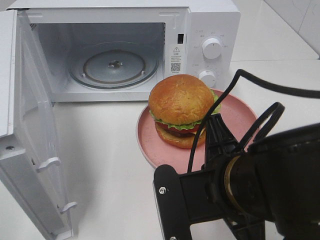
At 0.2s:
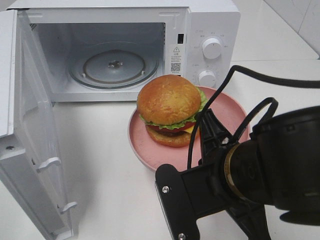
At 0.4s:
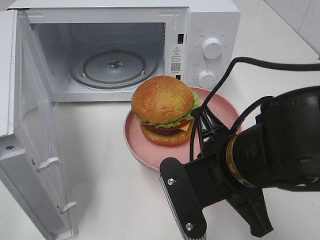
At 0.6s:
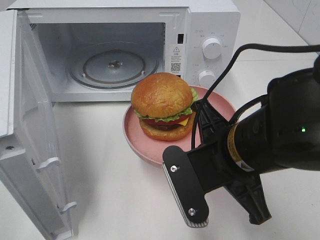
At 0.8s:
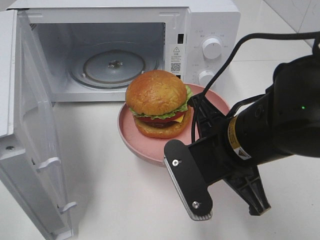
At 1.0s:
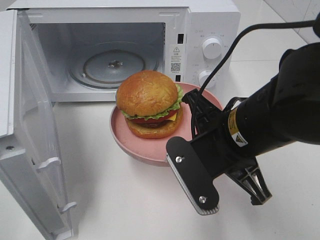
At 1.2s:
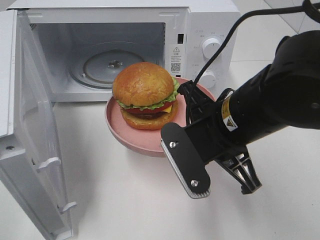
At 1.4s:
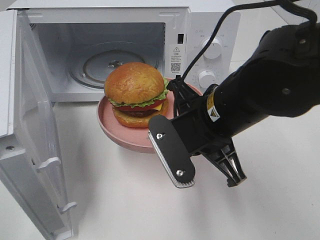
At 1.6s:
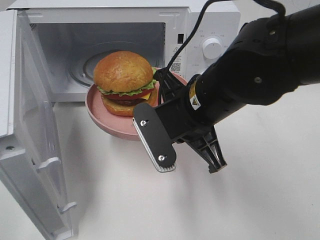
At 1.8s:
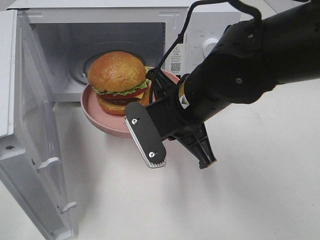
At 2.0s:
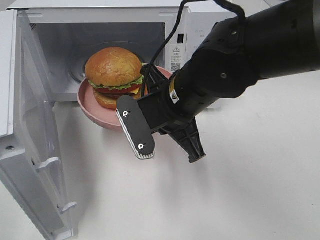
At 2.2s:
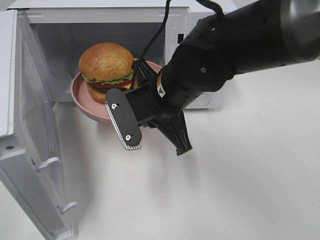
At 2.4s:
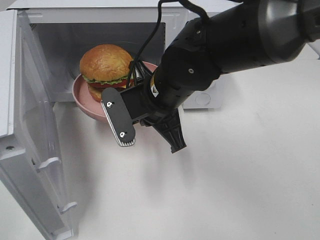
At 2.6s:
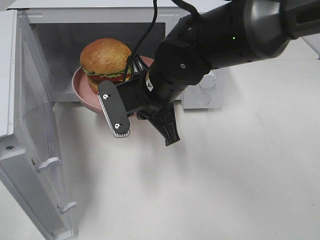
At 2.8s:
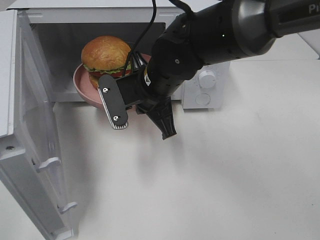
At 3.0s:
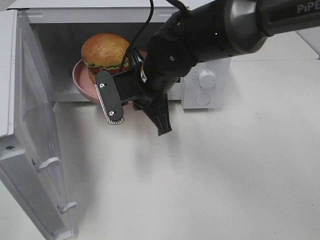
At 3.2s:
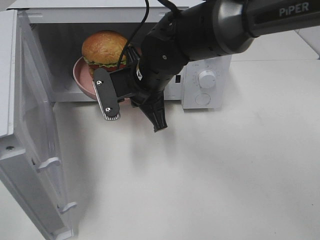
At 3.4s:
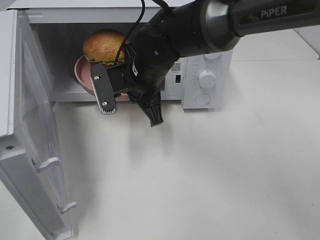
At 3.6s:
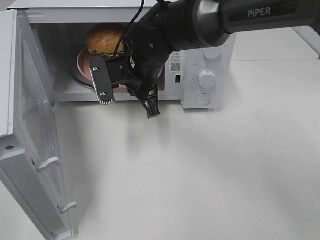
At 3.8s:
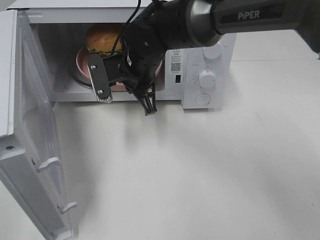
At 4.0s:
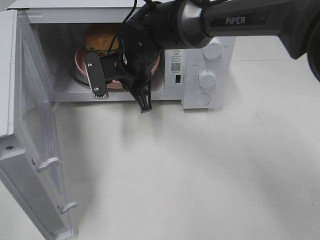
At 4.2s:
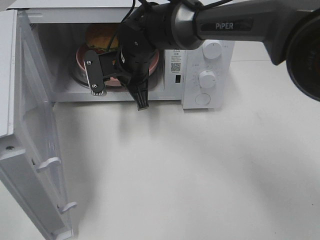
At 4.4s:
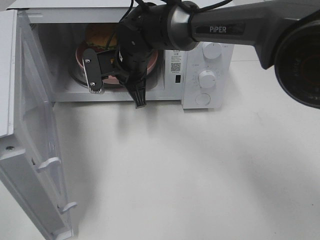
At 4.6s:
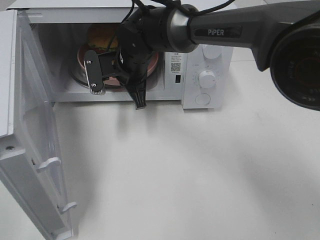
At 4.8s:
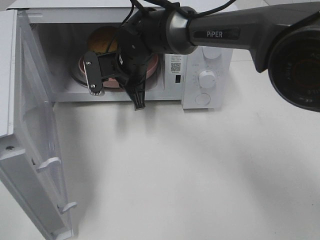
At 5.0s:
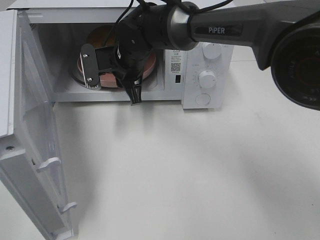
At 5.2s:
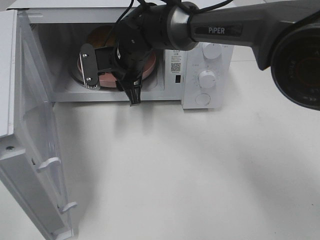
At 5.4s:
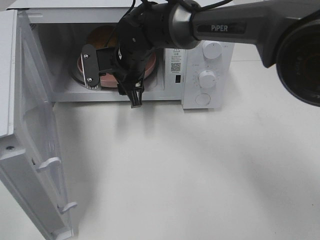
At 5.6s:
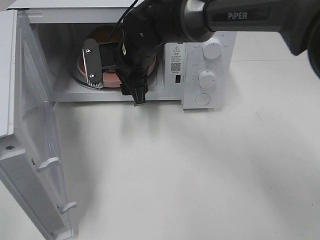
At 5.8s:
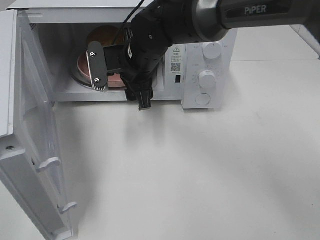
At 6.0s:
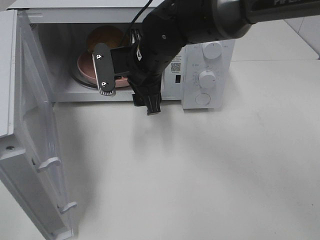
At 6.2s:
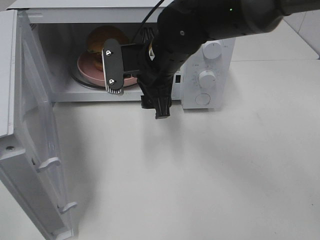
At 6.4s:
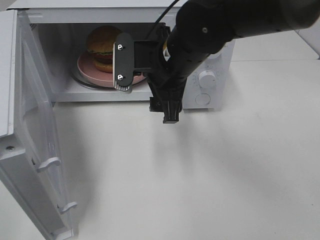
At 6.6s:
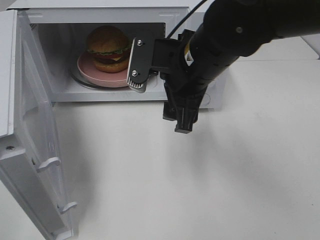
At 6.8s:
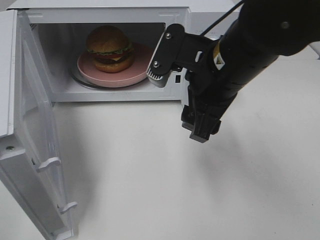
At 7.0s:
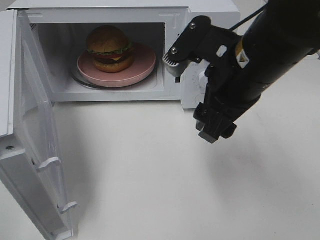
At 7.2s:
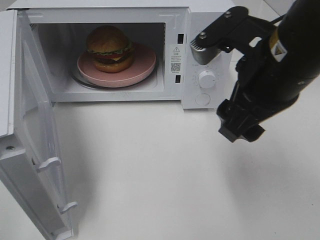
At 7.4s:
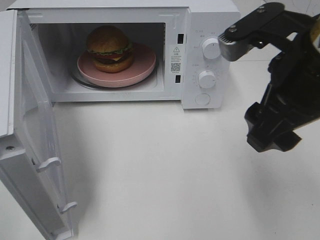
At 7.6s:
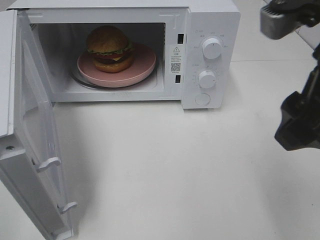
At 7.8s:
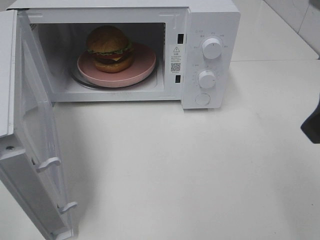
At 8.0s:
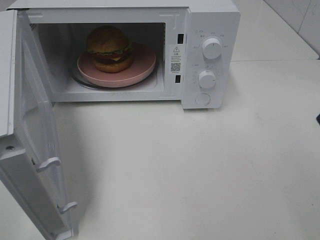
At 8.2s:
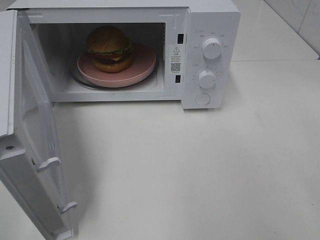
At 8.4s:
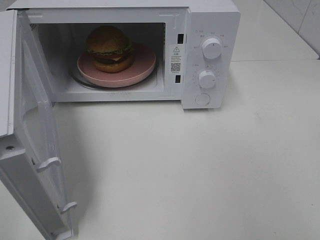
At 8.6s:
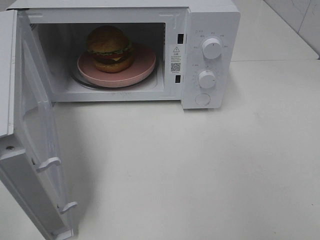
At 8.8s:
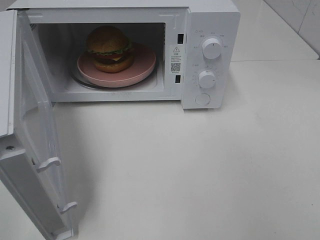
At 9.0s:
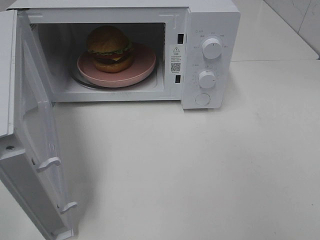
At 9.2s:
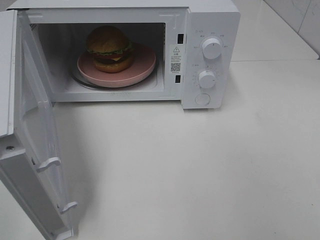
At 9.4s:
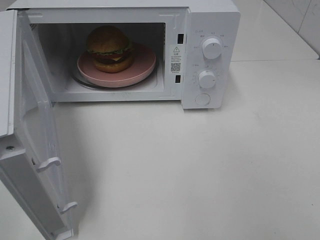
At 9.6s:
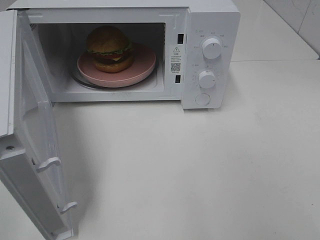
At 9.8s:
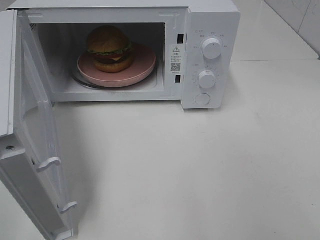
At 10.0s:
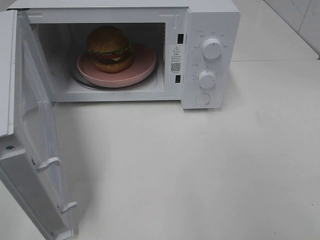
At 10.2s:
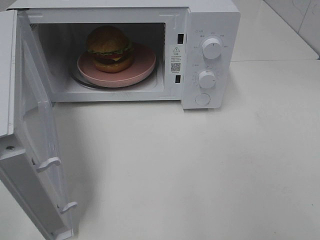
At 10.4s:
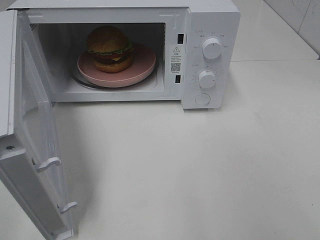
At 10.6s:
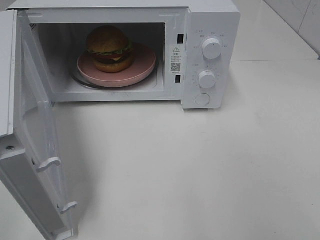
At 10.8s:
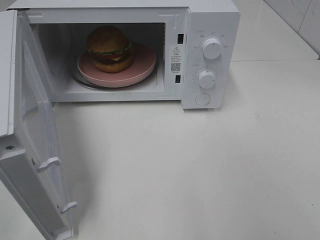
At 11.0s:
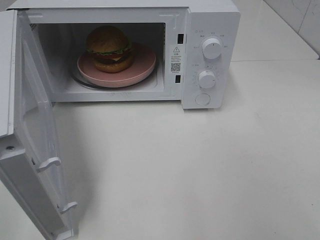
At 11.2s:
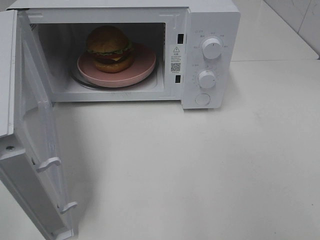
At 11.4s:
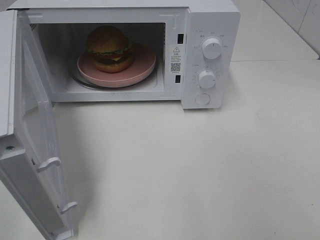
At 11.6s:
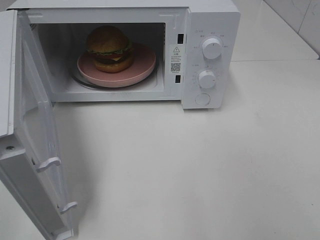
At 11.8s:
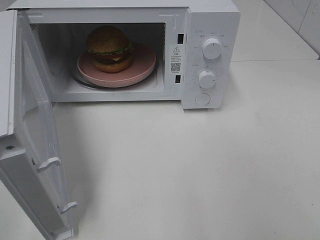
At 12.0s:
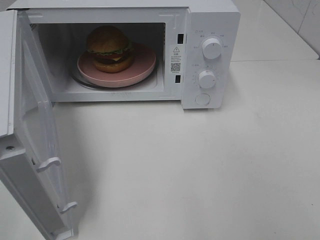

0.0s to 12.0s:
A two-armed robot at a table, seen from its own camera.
Task of the whole recording: Heat the burger.
Step, 0.0s to 5.0s: Right hand: place the plate in the microwave.
0.0s to 1.6s: The right gripper goes about 10 cm forward.
1.6s to 3.0s: The right gripper moves forward and to the left, about 10 cm.
3.0s to 4.4s: The right gripper is displaced forward by some 10 cm.
4.4s to 6.0s: The right gripper heads backward, covering roughly 5 cm, and opens its fingers.
6.0s to 7.6s: The right gripper moves backward, to the right and upward, approximately 30 cm.
7.6s to 9.0s: The right gripper shifts approximately 20 cm backward and to the right.

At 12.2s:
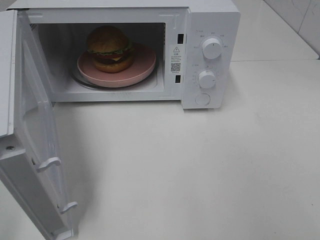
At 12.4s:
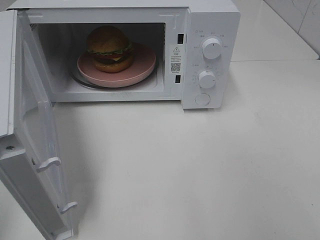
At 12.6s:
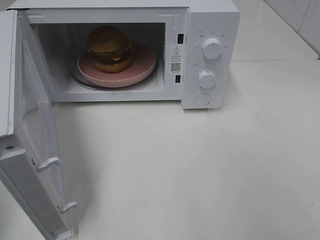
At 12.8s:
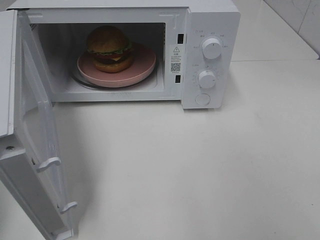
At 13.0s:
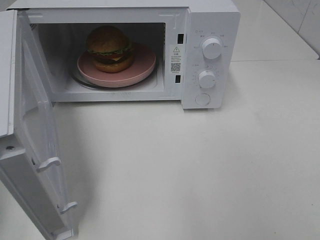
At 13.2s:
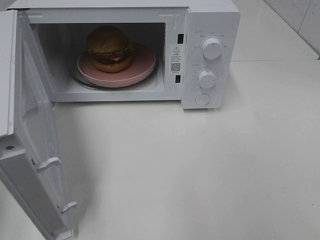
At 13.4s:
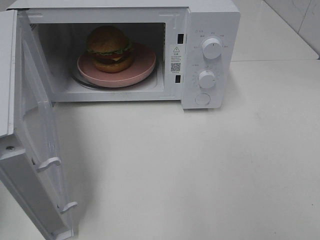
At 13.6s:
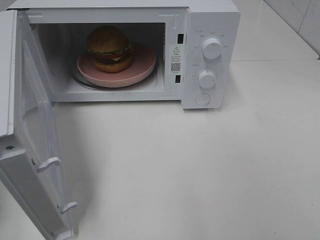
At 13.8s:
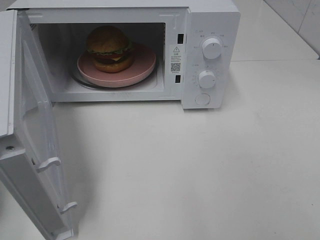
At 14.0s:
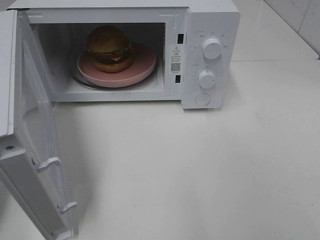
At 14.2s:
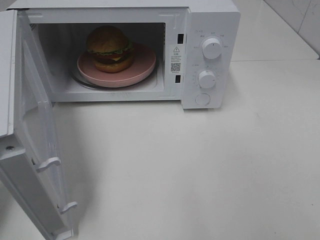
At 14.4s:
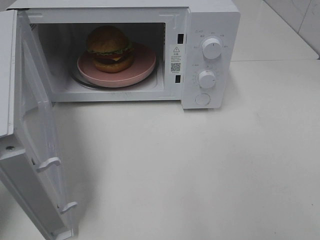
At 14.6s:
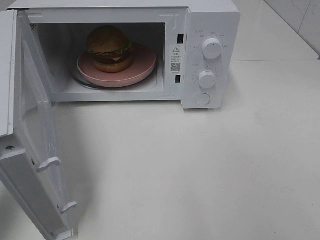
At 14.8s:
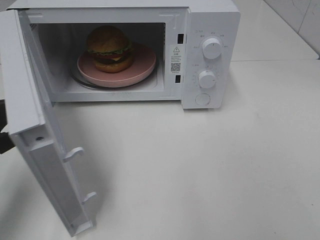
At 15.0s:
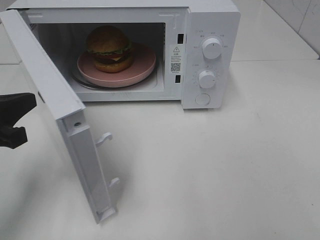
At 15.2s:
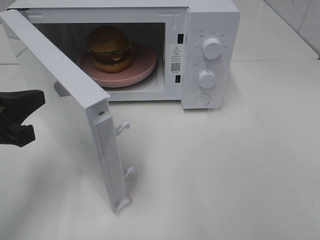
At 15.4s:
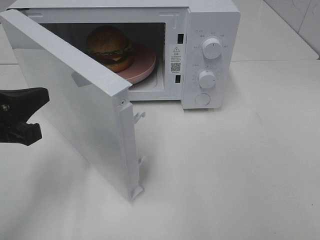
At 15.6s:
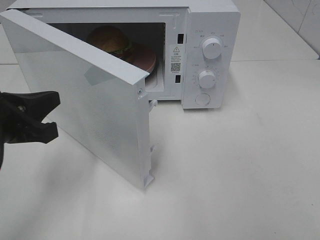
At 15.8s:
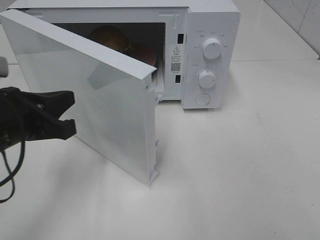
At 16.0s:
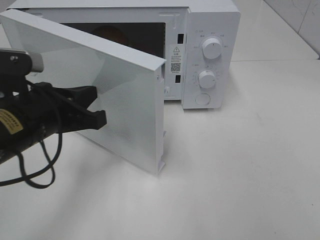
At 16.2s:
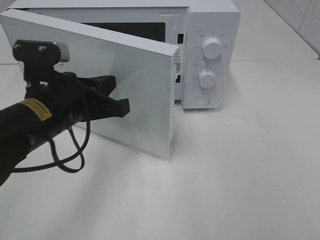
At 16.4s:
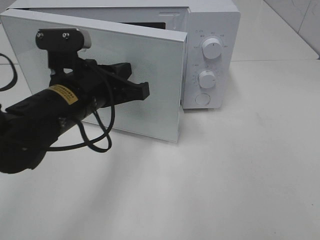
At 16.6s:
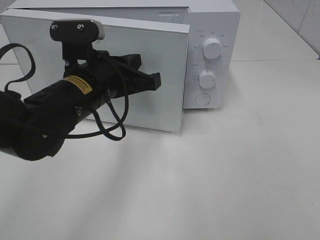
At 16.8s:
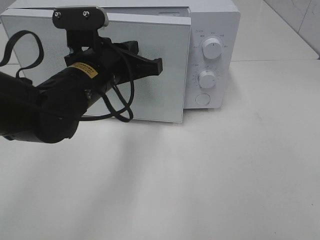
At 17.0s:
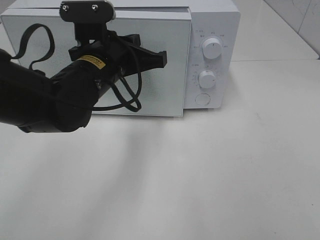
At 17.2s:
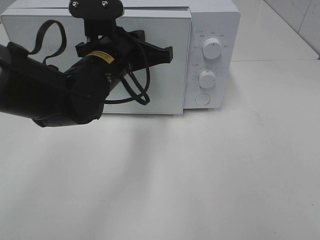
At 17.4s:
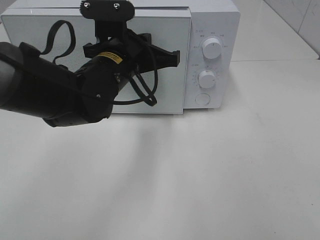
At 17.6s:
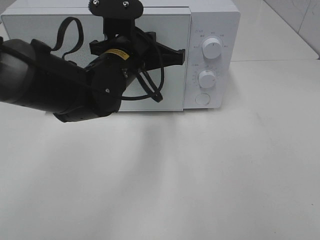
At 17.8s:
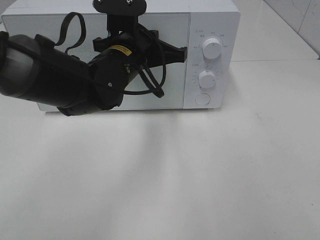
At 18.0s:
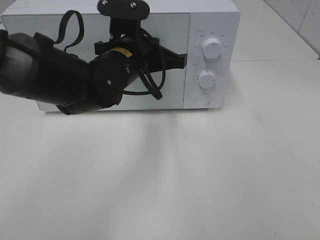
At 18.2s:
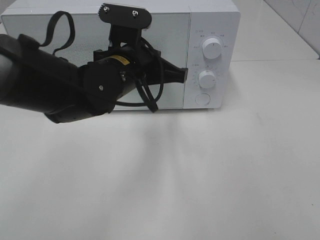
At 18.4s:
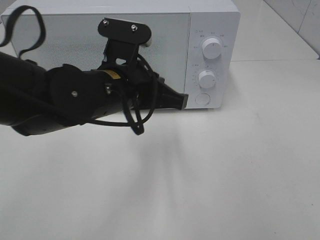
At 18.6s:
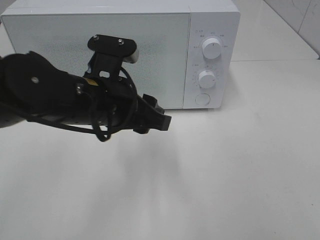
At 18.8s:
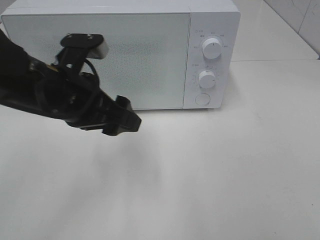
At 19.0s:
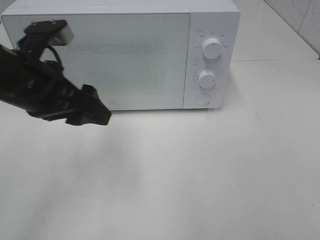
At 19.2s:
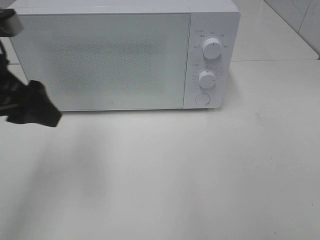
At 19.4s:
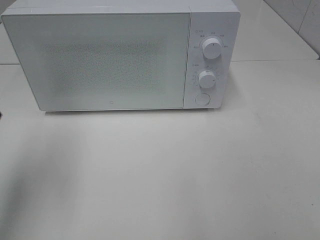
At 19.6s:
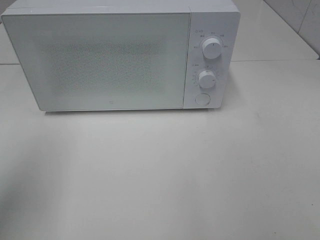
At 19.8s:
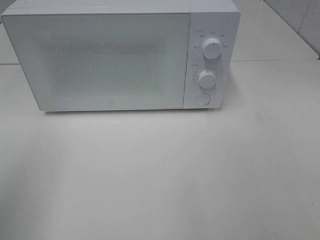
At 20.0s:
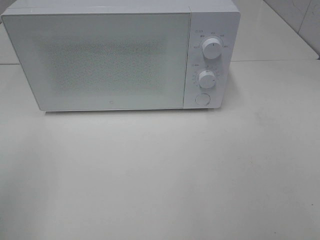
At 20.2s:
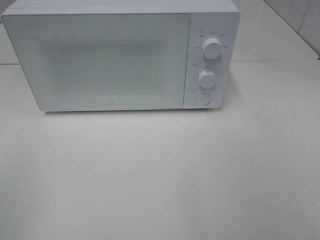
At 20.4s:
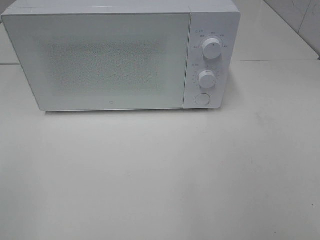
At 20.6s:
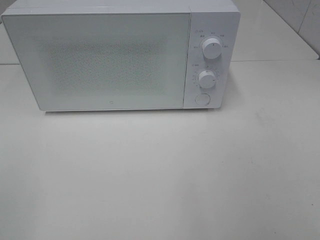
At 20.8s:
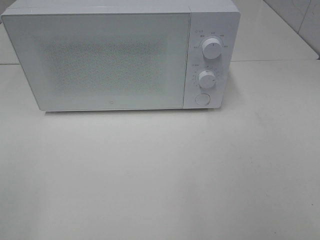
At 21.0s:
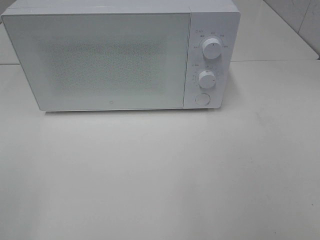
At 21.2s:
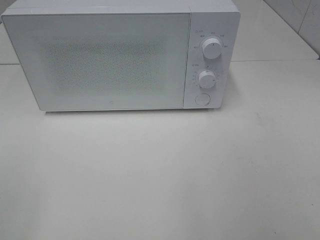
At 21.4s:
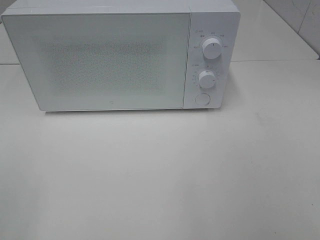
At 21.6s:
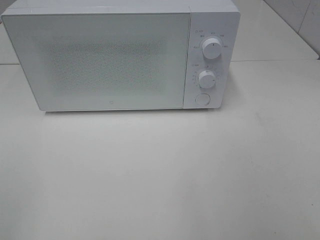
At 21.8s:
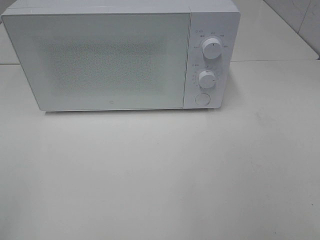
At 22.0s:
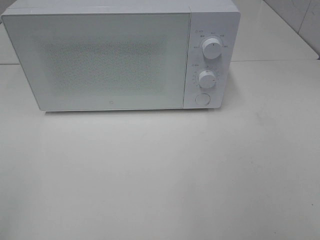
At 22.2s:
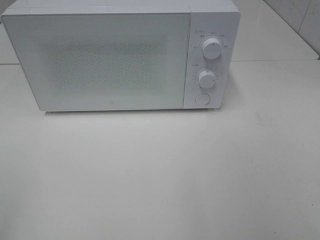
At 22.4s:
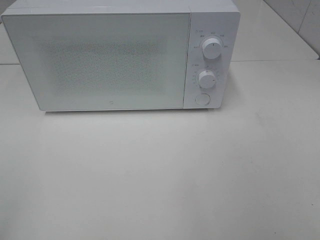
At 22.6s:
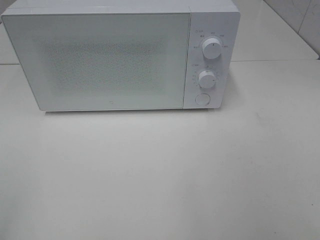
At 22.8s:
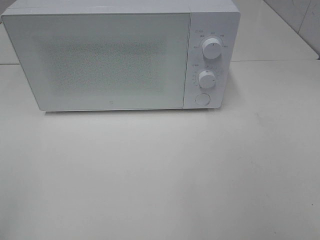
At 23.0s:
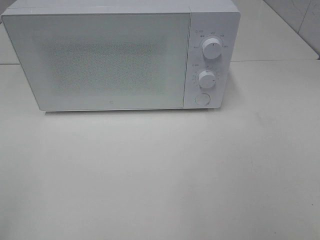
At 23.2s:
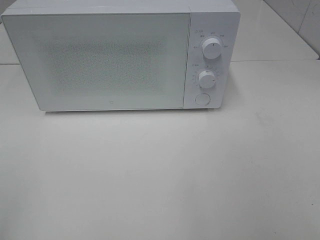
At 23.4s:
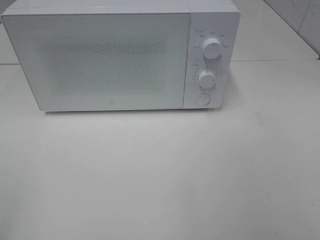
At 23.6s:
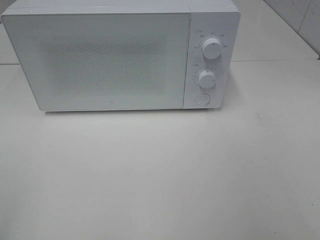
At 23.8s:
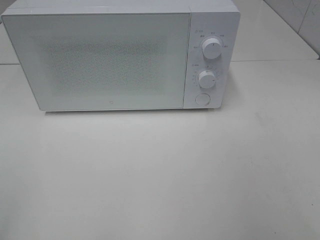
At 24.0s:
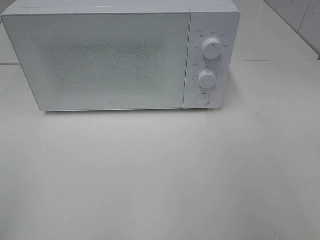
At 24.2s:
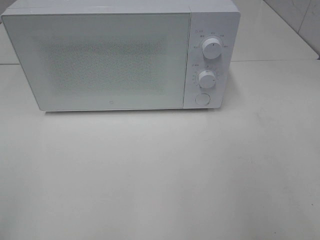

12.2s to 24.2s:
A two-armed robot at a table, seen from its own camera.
Task of the whole recording: Heat the burger.
Step, 12.2s to 18.2s: Left hand: close the microwave door.
13.8s to 15.2s: The left gripper moves to the right, about 10 cm.
15.2s to 16.6s: The left gripper shifts approximately 15 cm to the right and forward.
16.6s to 18.2s: The left gripper ends up approximately 5 cm from where it was.
18.2s to 19.8s: The left gripper goes some 35 cm to the left, backward and upward, and opens.
